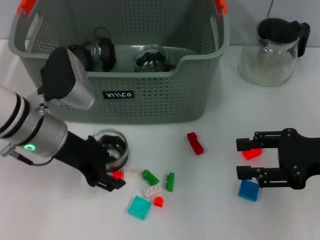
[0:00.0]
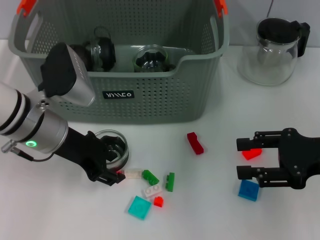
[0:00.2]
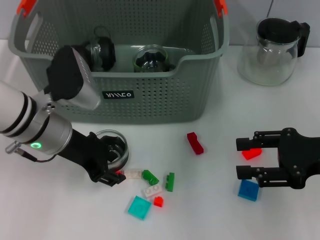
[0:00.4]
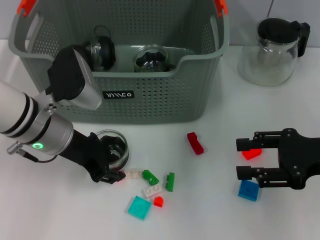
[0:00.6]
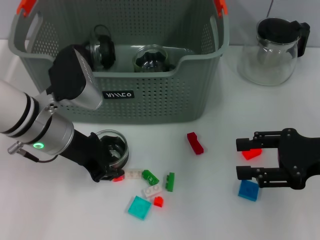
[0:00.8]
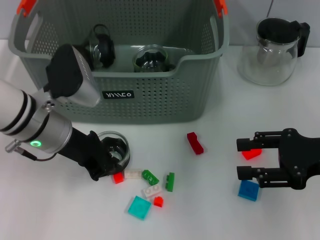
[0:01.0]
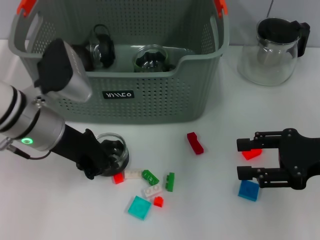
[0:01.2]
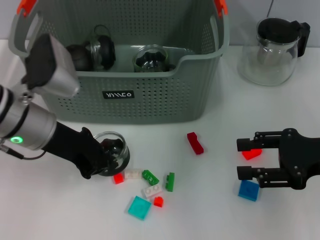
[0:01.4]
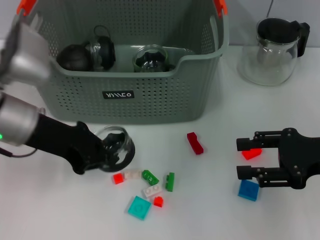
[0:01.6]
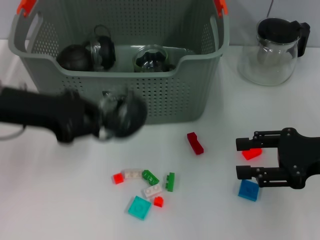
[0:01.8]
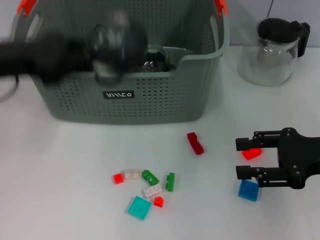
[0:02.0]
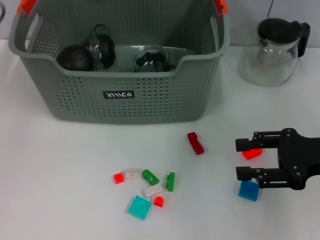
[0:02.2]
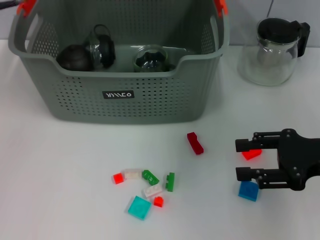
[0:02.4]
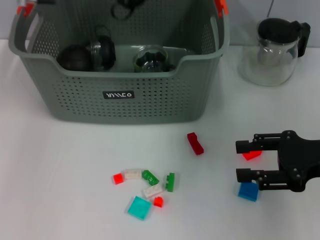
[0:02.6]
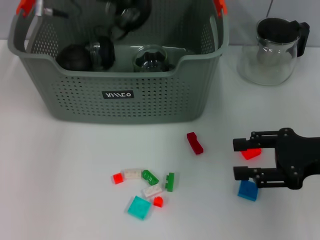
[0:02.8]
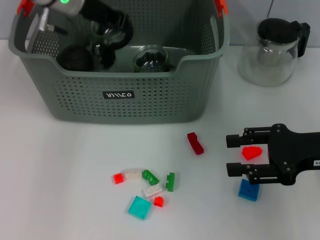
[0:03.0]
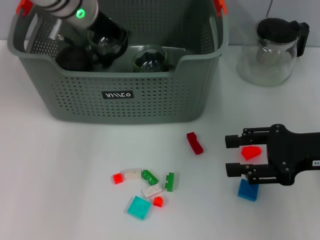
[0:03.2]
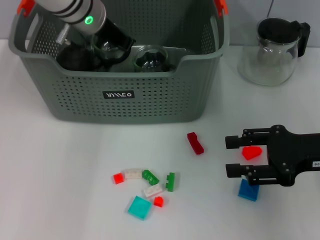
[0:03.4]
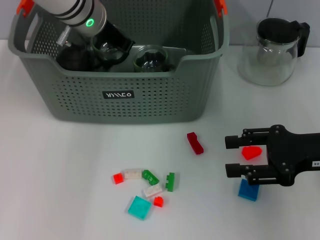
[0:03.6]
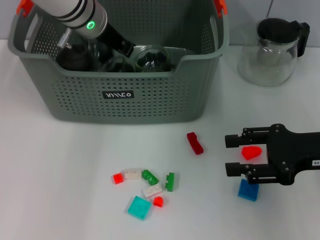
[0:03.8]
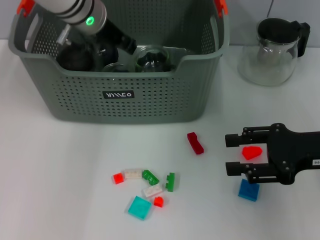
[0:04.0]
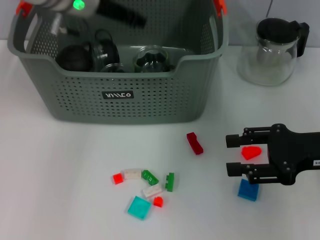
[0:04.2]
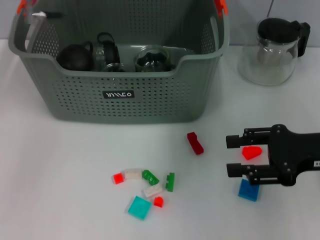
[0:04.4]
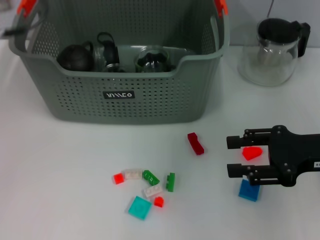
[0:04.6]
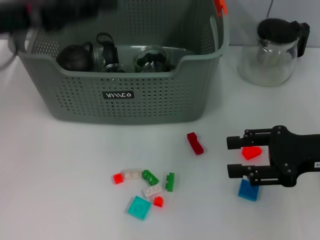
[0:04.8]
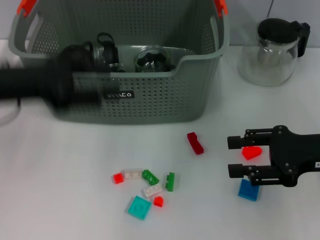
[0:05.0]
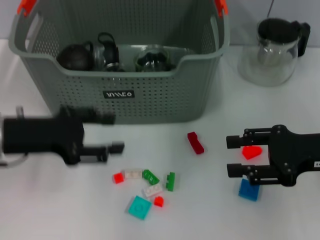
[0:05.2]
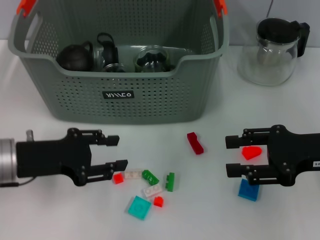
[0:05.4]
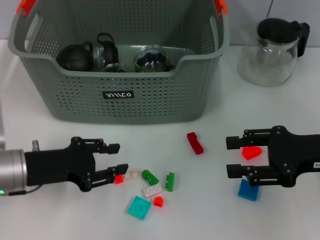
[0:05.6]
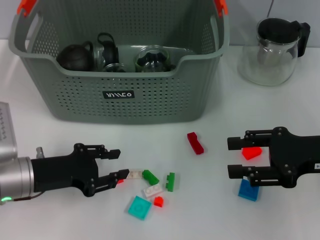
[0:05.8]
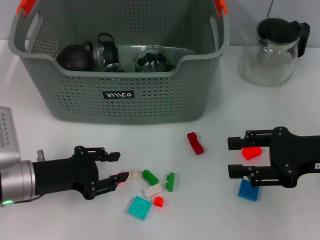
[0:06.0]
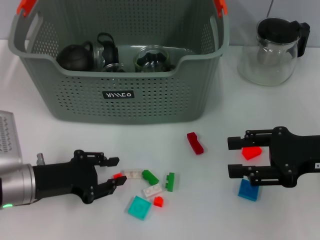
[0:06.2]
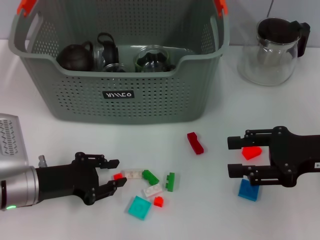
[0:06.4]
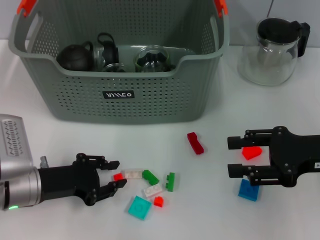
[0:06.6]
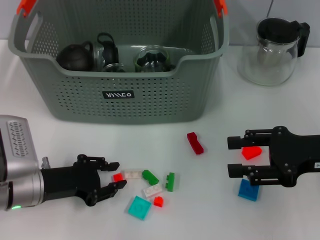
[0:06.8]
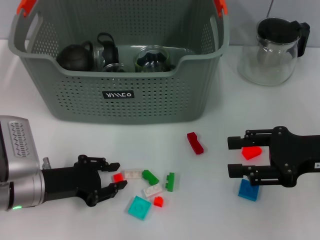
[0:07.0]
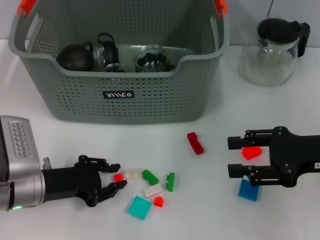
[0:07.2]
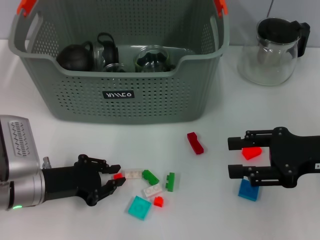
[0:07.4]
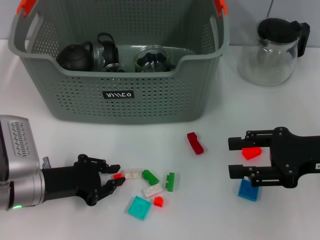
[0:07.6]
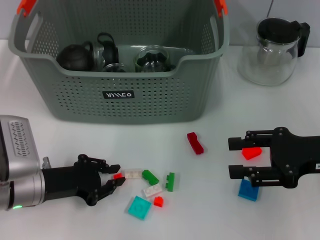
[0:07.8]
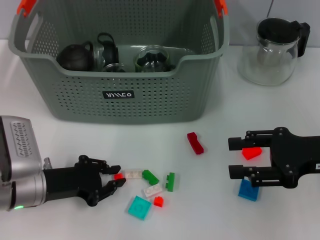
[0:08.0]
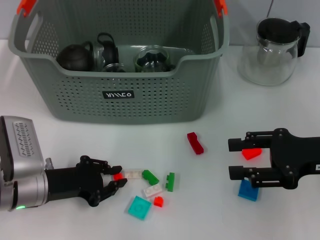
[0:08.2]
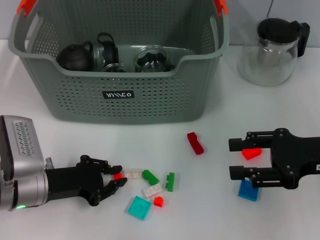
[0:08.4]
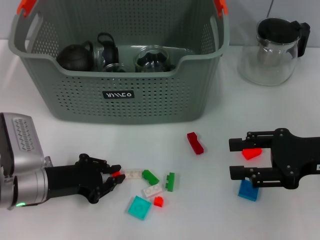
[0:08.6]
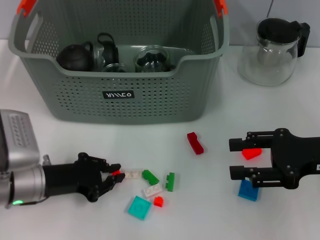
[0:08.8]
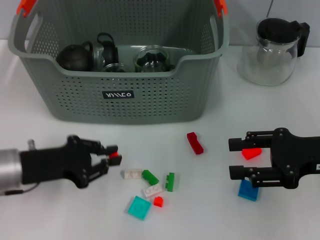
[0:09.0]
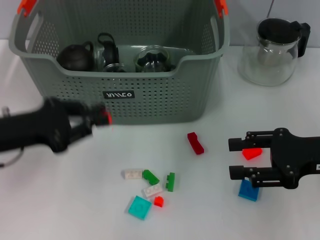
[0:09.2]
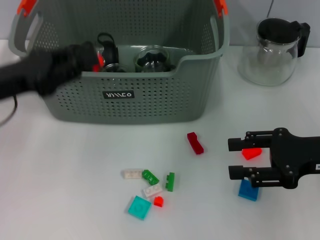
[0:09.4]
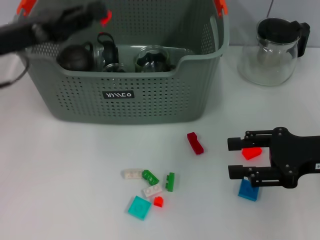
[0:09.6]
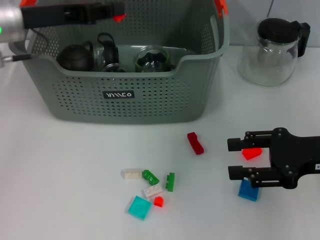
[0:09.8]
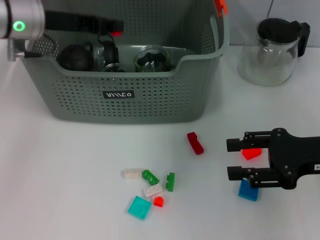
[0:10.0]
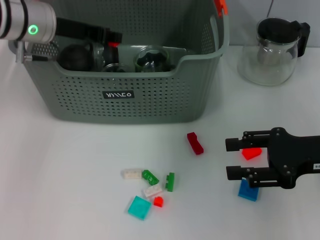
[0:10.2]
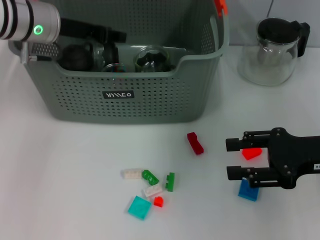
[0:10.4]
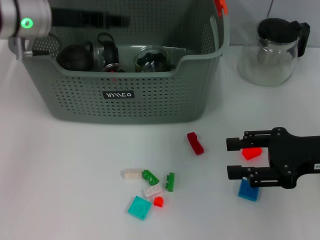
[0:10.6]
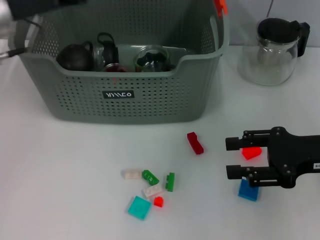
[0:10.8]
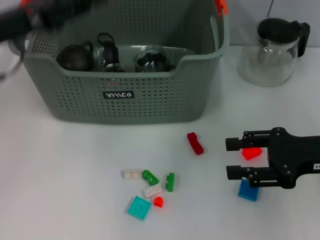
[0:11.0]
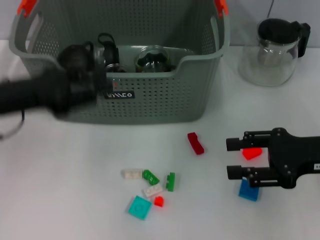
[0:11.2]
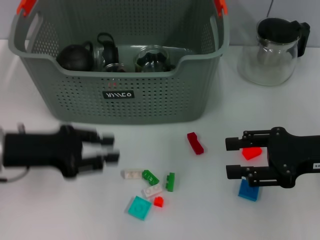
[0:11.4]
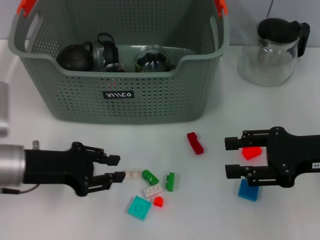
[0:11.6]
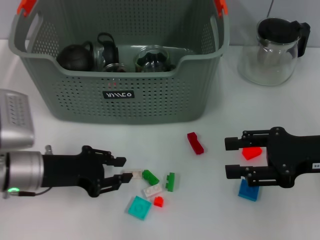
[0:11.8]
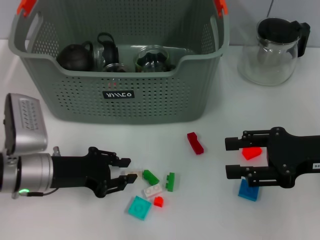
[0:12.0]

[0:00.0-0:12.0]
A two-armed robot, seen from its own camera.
Task of the whole recording: pick up the teacup on the table and place it into the storage bin, pick up the block on the table and place it into the storage bin.
Step, 0:01.0 to 0:04.2: Place the cup in the storage box with left gripper.
Step, 0:04.4 to 0:08.6: Grasp the orange block with left gripper.
Step, 0:08.8 to 0:10.4: Place the orange block in the storage box with left gripper.
0:00.0 to 0:01.6: The left gripper closes its fingers.
0:01.6 to 0:03.0: The left gripper moves forward, upward and to the right, roughly 20 cm.
0:03.0 to 0:04.4: The left gripper travels backward by about 5 cm, and opens its fingers.
0:04.4 to 0:06.0: The left gripper travels downward and backward by some 25 cm.
0:06.0 to 0:09.0: There are only small adjustments of the grippers.
0:09.0 to 0:10.4: The left gripper heads forward and upward, covering about 20 cm.
0:10.4 to 0:12.0: The left gripper shifts roughly 20 cm backward and downward.

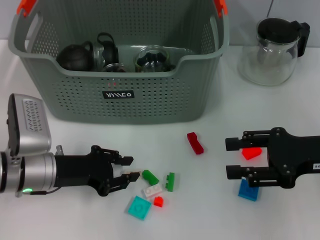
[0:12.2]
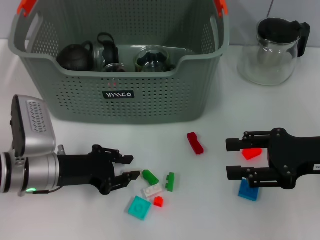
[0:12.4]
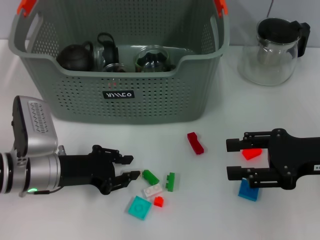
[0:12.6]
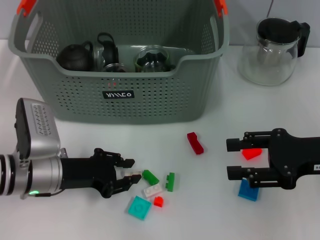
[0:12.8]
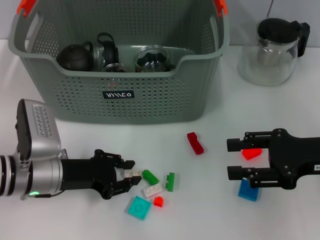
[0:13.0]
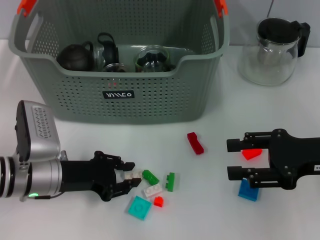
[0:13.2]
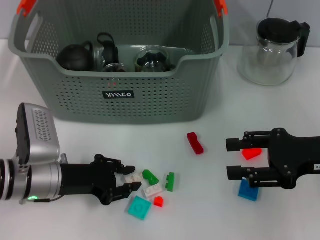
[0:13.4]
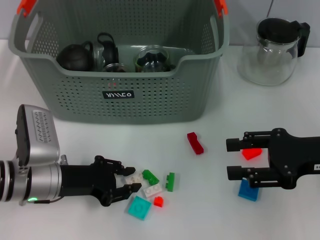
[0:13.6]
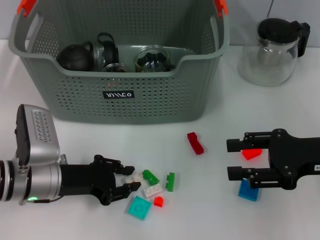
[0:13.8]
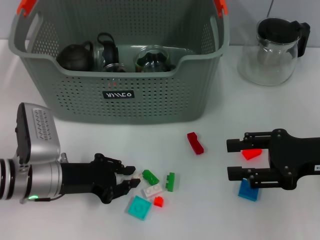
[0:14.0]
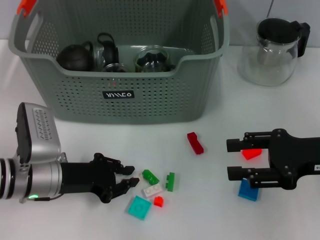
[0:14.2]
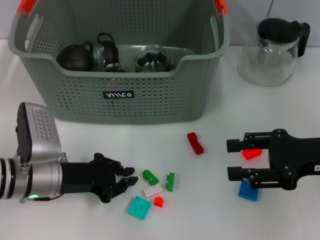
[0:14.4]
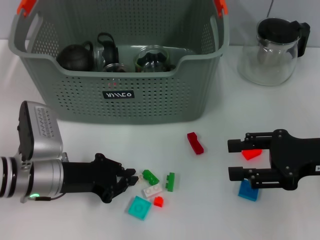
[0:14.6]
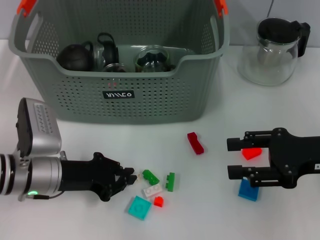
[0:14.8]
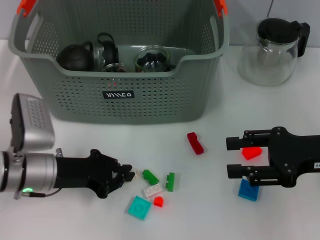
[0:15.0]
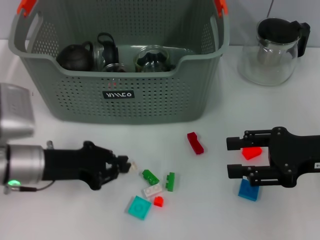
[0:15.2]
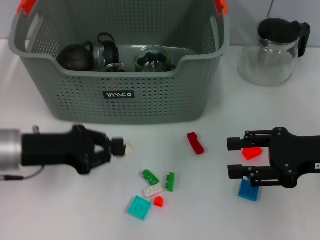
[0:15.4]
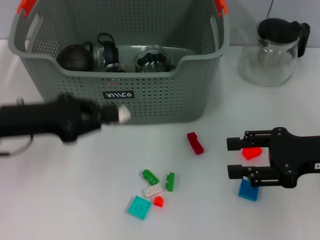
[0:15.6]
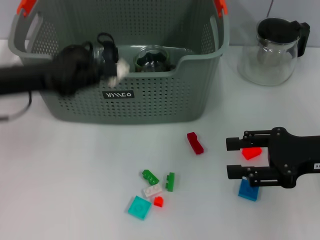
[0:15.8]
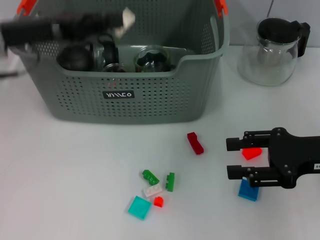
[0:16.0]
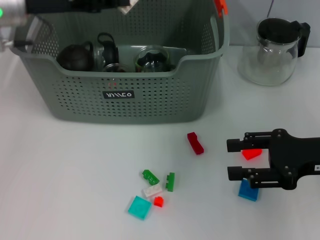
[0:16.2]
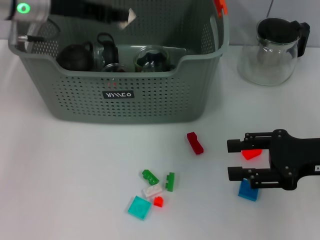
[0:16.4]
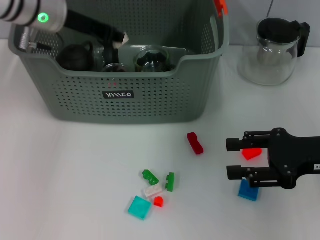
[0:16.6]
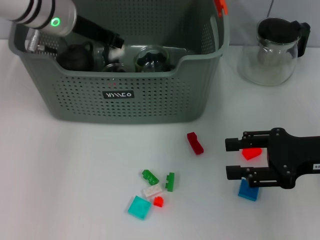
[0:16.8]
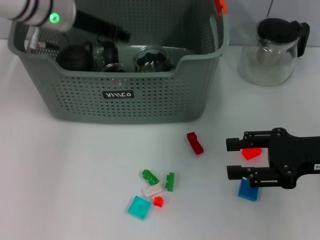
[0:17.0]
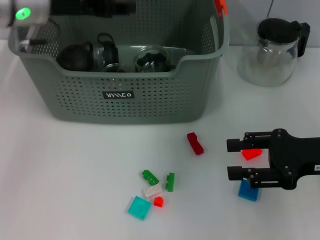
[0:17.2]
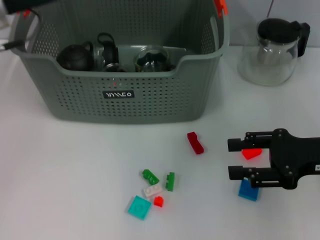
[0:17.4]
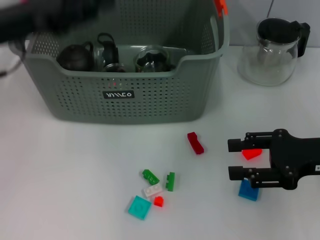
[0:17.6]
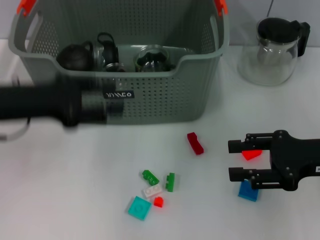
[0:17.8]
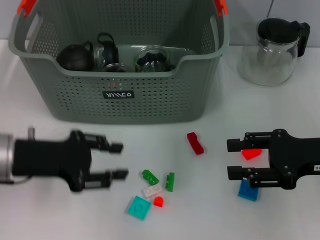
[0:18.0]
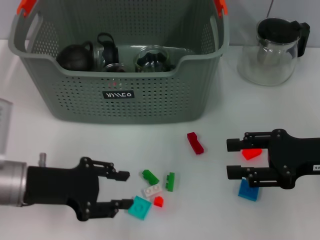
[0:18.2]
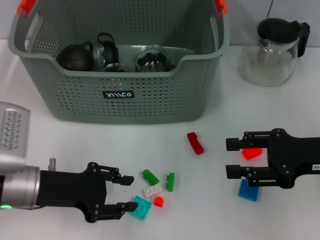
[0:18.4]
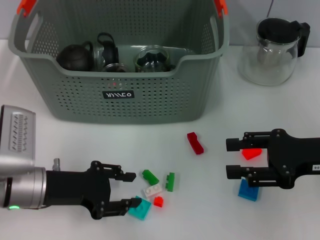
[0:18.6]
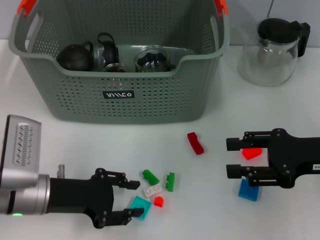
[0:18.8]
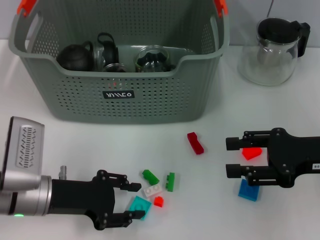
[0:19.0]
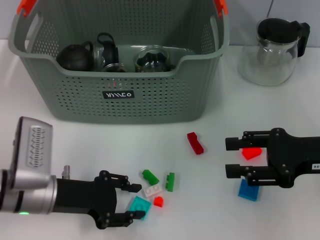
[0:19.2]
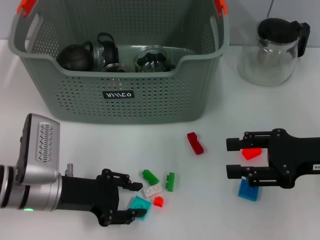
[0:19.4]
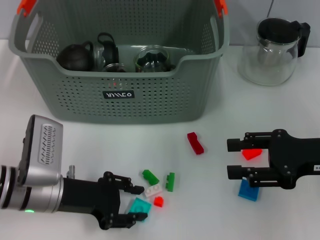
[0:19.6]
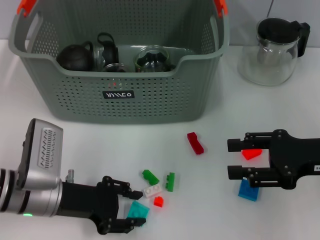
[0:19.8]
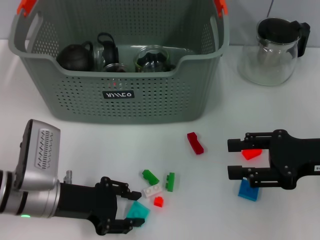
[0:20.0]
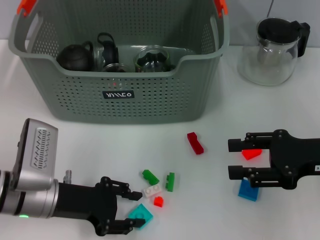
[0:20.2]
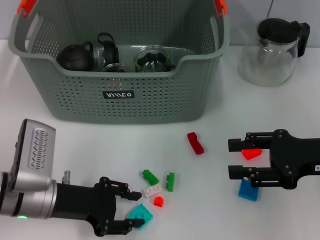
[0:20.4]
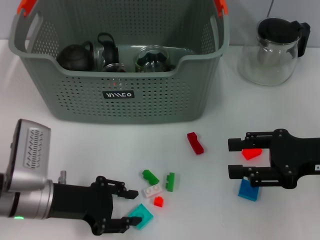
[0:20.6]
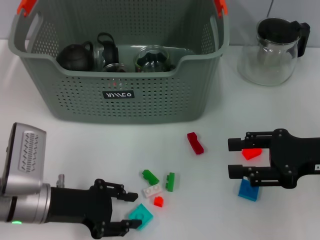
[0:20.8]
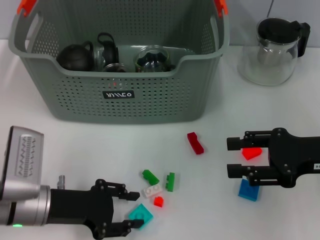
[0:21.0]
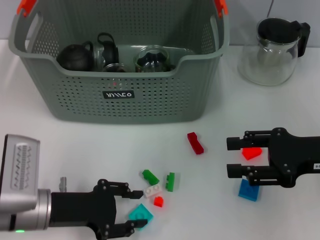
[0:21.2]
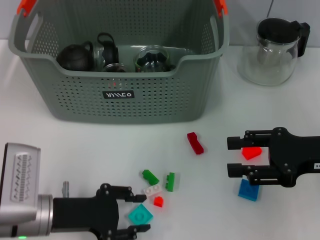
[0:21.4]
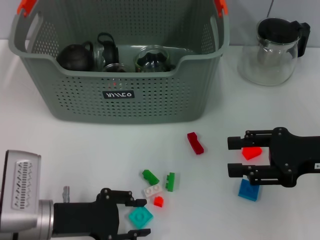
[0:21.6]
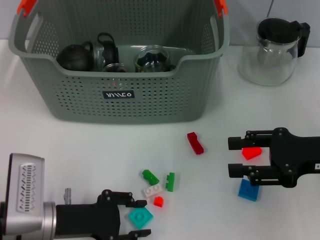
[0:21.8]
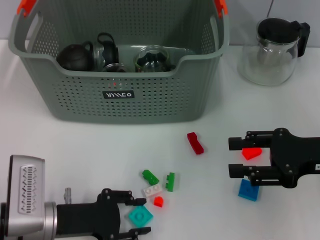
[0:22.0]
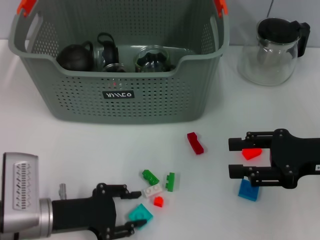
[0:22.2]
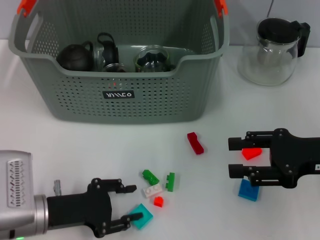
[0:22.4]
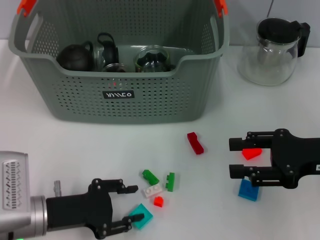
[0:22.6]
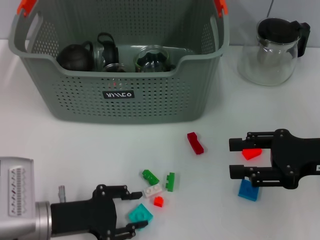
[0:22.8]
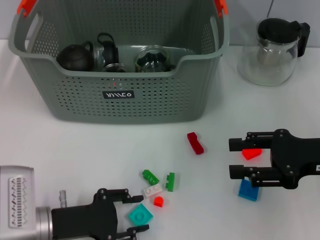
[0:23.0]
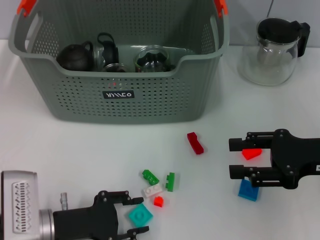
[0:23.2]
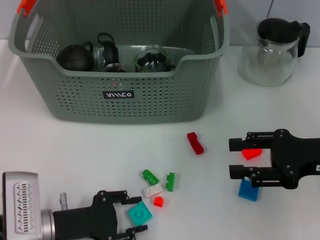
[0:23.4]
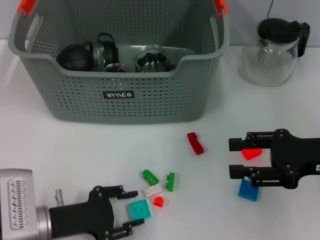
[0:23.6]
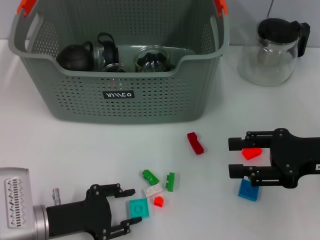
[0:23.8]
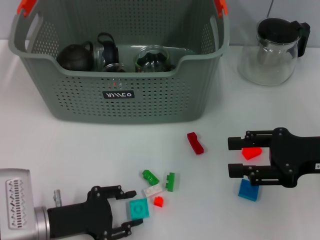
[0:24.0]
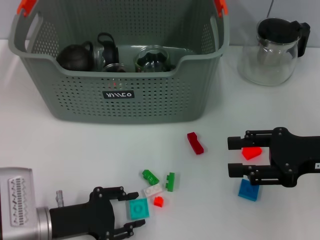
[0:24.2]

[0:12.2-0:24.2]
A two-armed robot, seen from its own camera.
Task of the whole recording: pick up the teacup on the table and place it into the storage bin, pick up the block on the table and place it into the storage bin.
Step, 0:12.2 to 0:14.2: Grasp the white block with left gripper.
Step, 0:14.4 to 0:17.4: Place the white block in the storage box with left gripper.
0:12.2 to 0:13.8: The grippers stay close to where they were, moving slightly.
0:13.8 to 0:15.2: The left gripper closes its fingers.
0:15.2 to 0:16.6: The left gripper heads forward and upward, covering about 20 cm.
0:16.6 to 0:18.2: The left gripper moves backward and downward, about 25 cm, and opens up.
0:18.2 to 0:19.8: The left gripper ends up roughly 5 cm from where it was.
0:19.8 to 0:22.6: There are only small adjustments of the grippers.
0:22.6 to 0:24.2: The grippers stay close to where they were, moving slightly.
